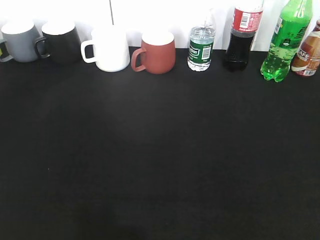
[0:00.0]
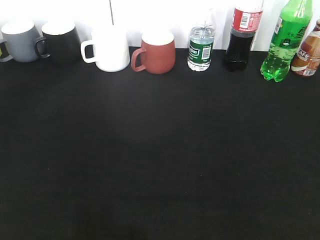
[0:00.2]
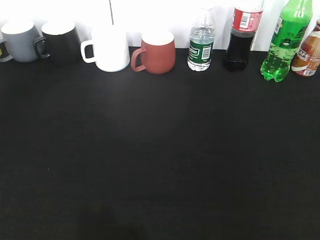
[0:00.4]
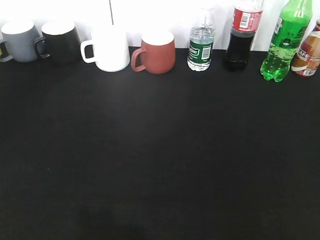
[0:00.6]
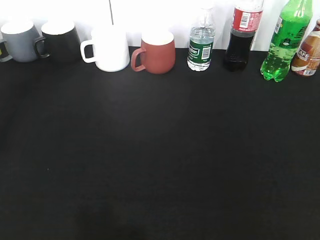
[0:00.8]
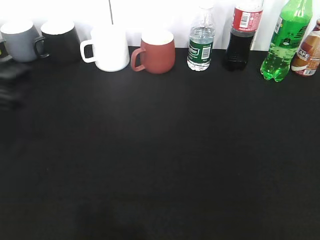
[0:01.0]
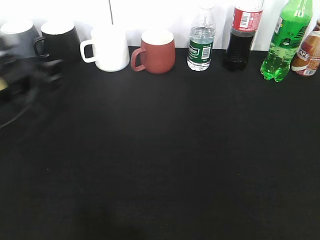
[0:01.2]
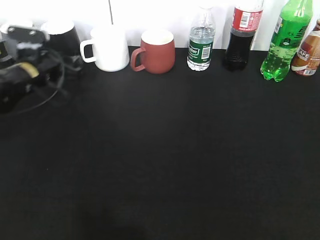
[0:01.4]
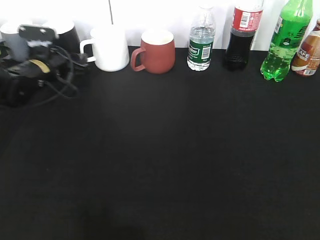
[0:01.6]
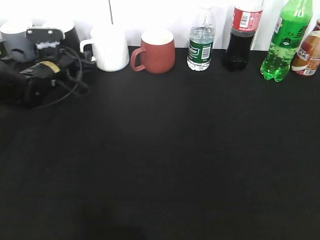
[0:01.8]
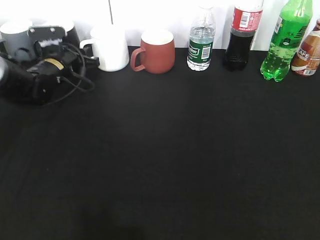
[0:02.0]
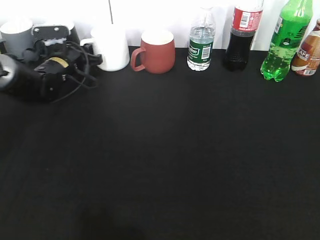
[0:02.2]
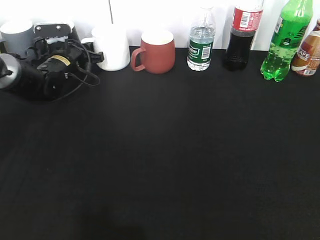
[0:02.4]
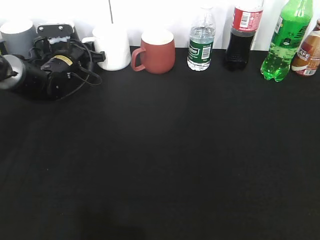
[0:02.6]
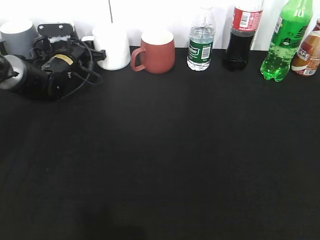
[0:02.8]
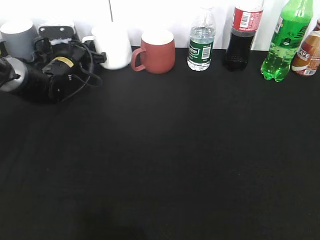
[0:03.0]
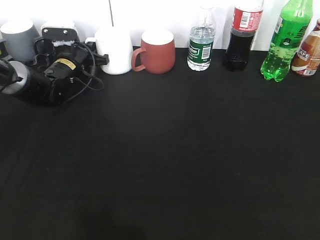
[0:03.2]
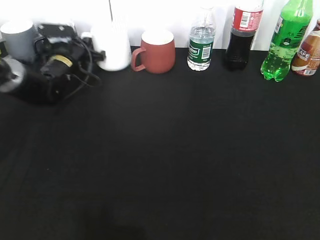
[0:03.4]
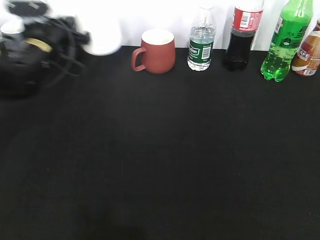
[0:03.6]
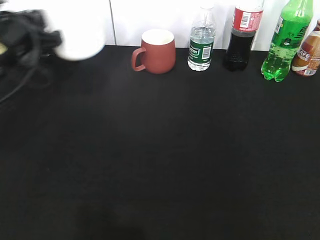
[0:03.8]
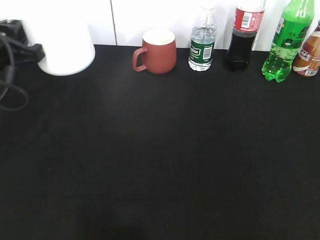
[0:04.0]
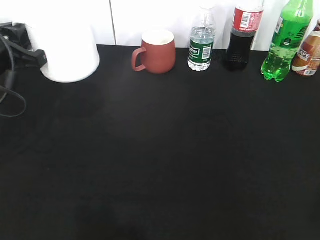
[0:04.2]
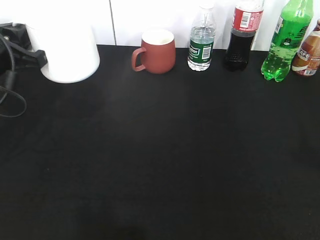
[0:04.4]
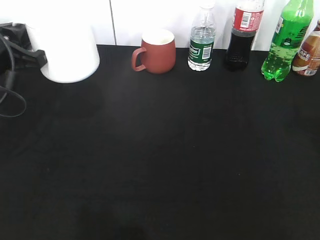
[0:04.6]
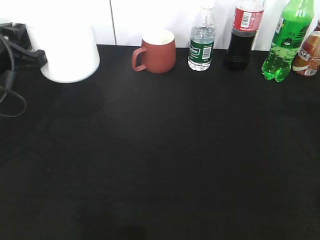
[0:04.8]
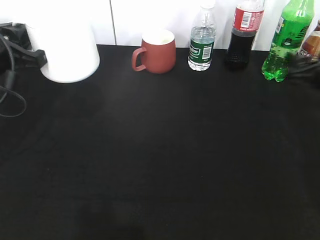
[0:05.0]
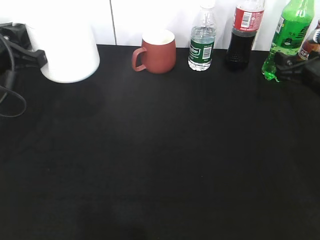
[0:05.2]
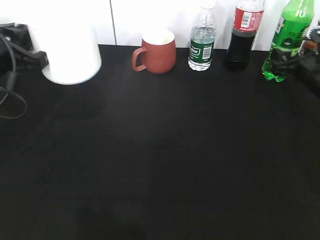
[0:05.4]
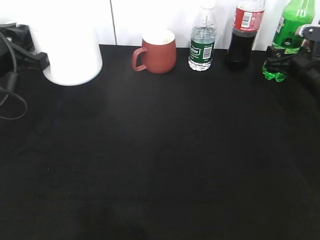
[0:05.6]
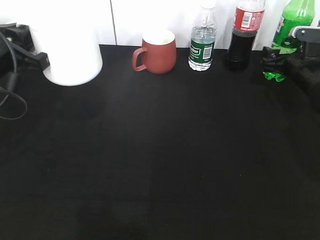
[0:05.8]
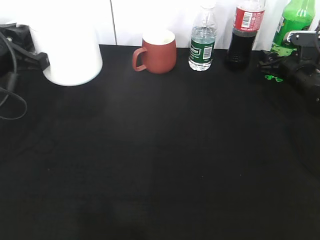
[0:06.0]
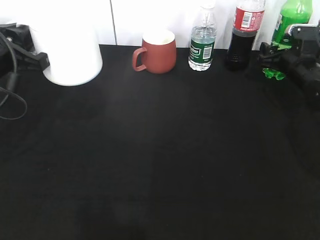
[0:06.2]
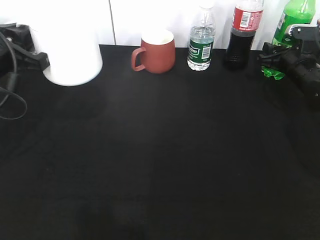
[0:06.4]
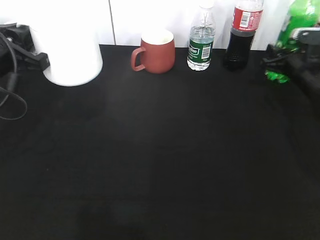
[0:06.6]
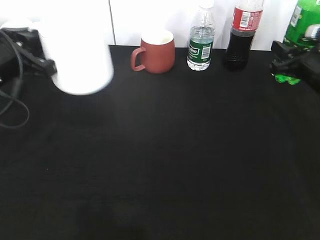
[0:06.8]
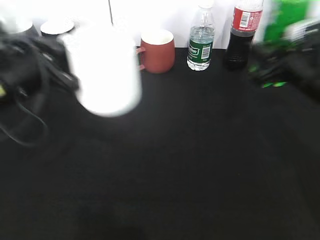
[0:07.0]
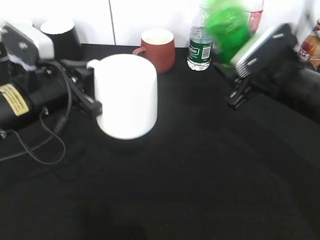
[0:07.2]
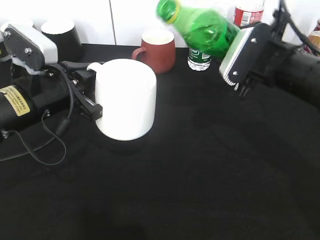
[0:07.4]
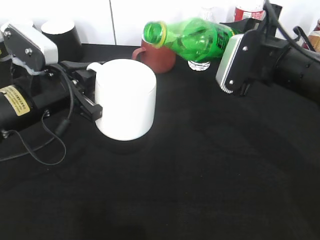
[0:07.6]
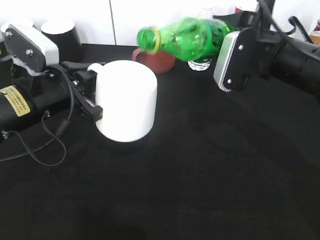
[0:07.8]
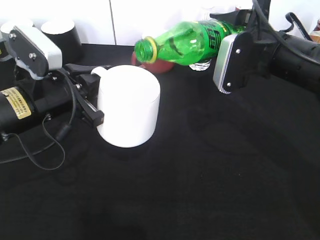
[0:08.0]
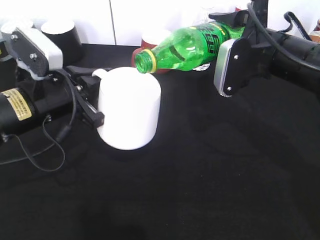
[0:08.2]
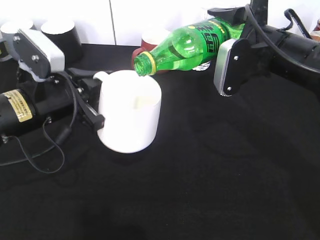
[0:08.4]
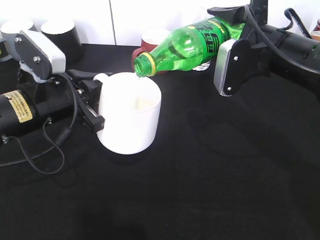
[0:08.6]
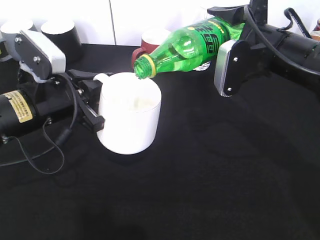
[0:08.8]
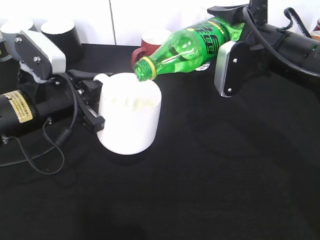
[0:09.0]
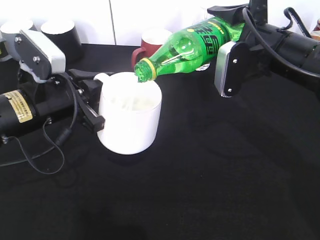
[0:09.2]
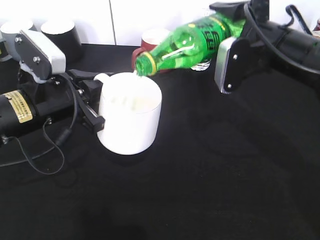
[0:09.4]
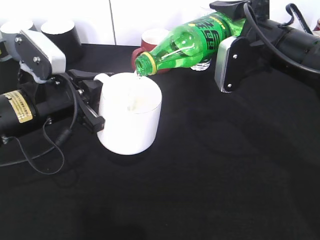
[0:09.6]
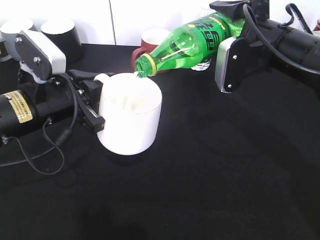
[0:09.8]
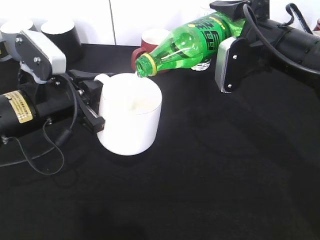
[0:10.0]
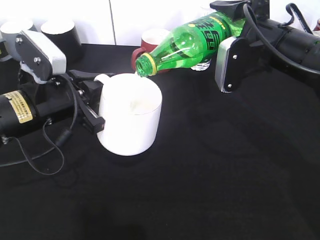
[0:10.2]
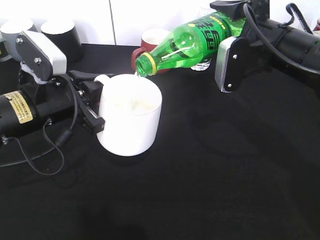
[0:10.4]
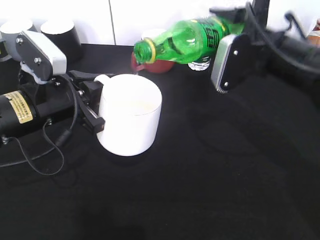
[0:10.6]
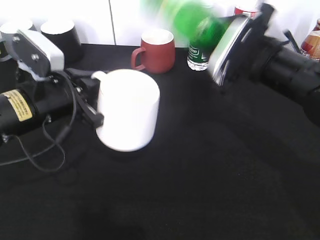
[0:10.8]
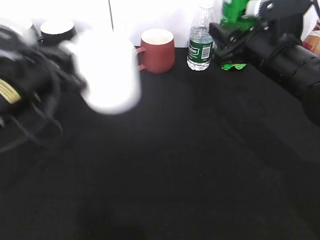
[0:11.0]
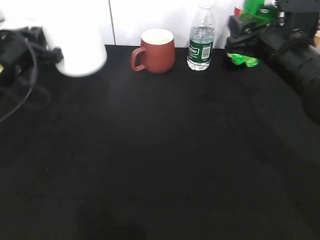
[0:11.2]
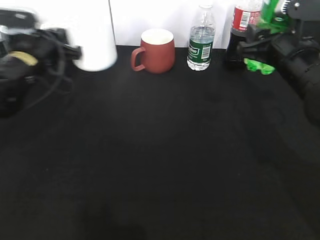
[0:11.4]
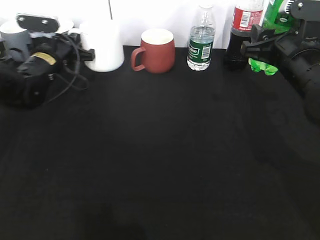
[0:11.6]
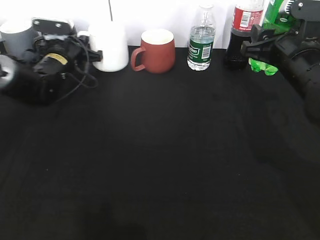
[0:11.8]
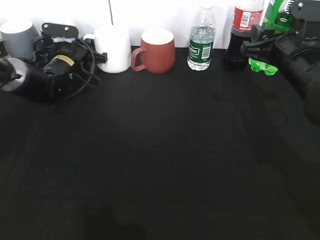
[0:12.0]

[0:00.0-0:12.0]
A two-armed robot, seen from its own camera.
Step, 0:00.0 to 0:03.0: Grasp the white cup with left gripper.
Step, 0:03.2 to 0:04.8: Lift the white cup with left gripper.
Step, 0:05.0 to 0:06.4: Grasp the bottle with sprite with right gripper.
Step, 0:06.6 to 0:10.6: Pour the sprite from bottle to cup with right gripper.
0:00.0 to 0:01.6: The left gripper goes roughly 40 cm forward.
0:01.6 to 0:03.0: The left gripper heads forward, covering roughly 5 cm, and closes up.
0:03.0 to 0:04.4: The left gripper shifts some 25 cm backward and upward; the right gripper heads forward, covering roughly 15 cm.
0:04.4 to 0:06.0: The right gripper travels forward and downward by approximately 35 cm, and opens, then closes once more.
0:06.0 to 0:07.6: The right gripper heads backward, to the left and upward, covering some 20 cm, and closes its fingers; the left gripper heads to the right, covering about 5 cm.
0:09.0 to 0:10.4: The two grippers keep their place.
0:10.4 to 0:12.0: The right gripper shifts by about 5 cm. Meanwhile the left gripper heads forward, covering about 25 cm.

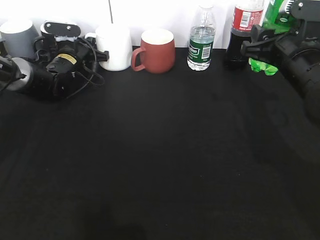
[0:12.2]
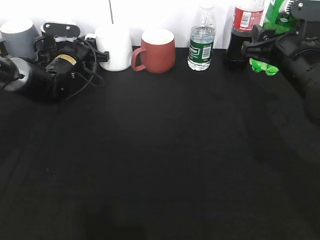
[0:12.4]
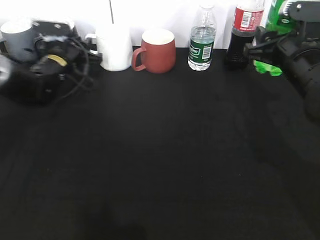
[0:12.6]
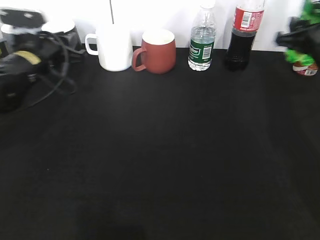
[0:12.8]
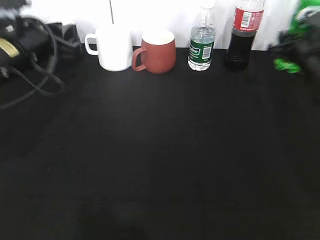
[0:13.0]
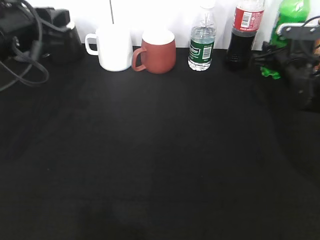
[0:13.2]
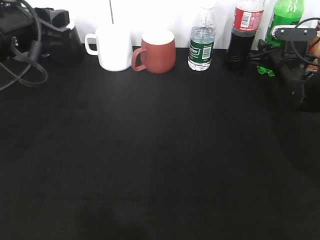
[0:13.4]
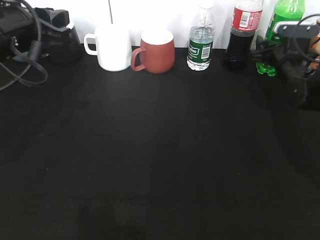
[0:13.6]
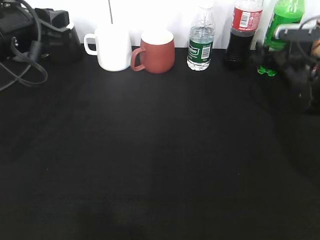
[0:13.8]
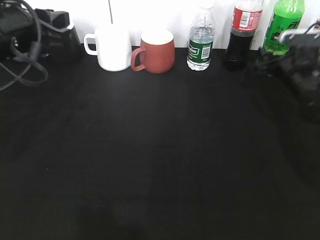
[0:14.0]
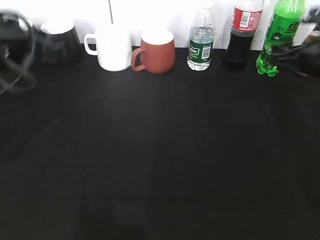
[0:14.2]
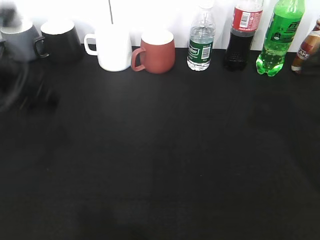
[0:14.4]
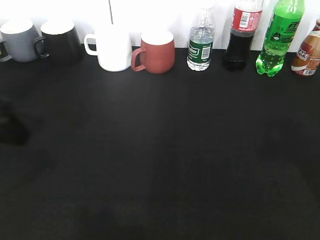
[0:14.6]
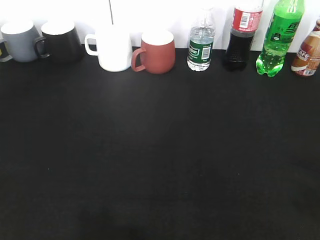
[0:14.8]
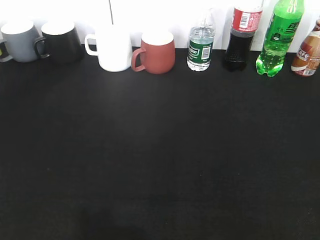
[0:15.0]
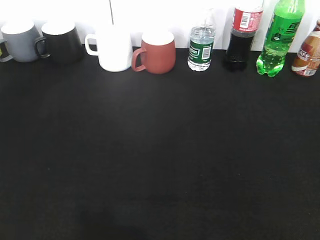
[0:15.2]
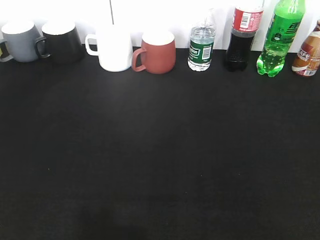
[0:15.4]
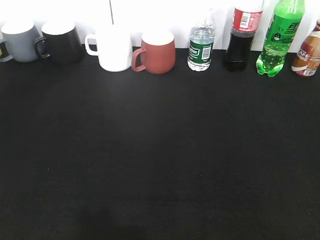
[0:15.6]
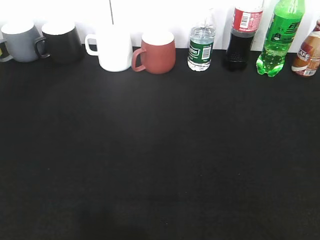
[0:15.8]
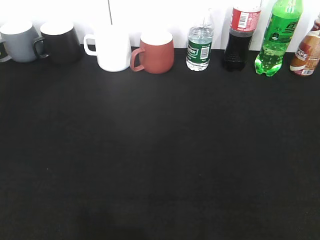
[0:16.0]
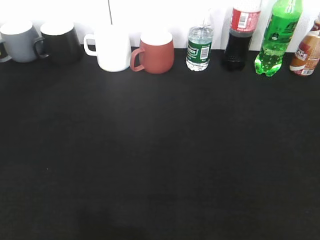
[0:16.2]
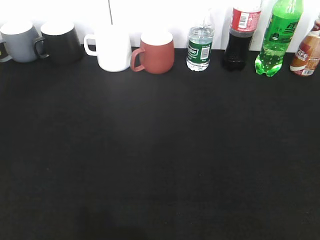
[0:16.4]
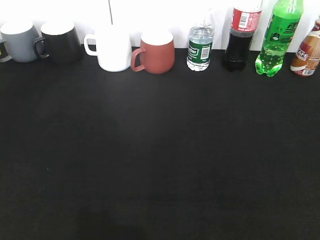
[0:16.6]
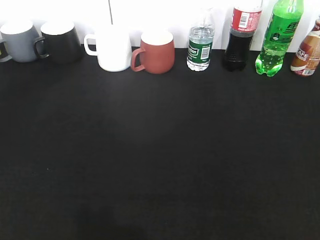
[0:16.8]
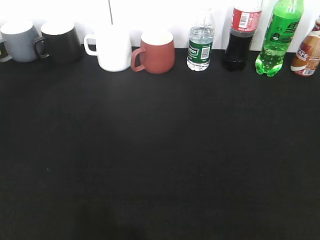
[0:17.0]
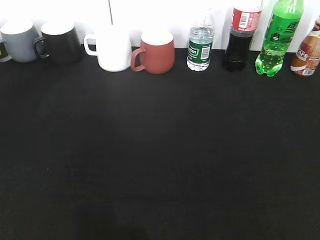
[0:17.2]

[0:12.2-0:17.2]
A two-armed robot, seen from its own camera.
Step, 0:12.2 to 0:14.0: Place the sprite bottle on the table with right gripper.
0:12.2 to 0:13.8: The right gripper is displaced forward, downward and to the right by approximately 15 cm, and opens up. Meanwhile the left gripper travels backward and upward by some 25 cm.
0:13.8 to 0:15.6: The left gripper goes some 30 cm backward and to the left, and opens, while the right gripper heads backward and upward, covering about 50 cm.

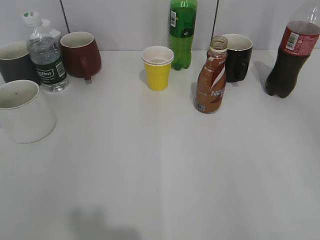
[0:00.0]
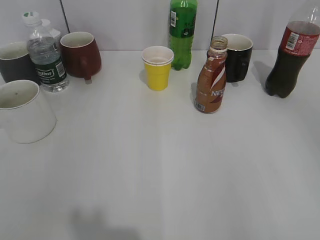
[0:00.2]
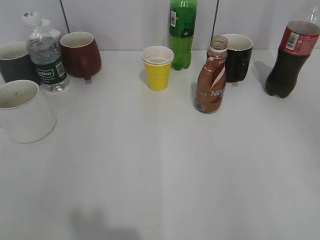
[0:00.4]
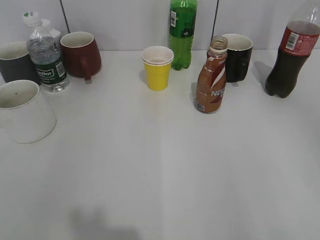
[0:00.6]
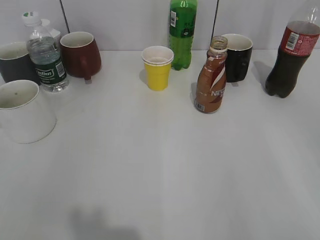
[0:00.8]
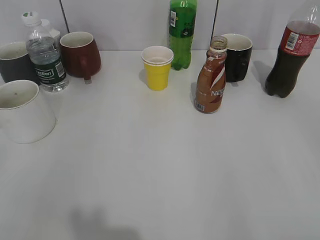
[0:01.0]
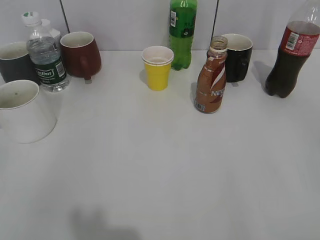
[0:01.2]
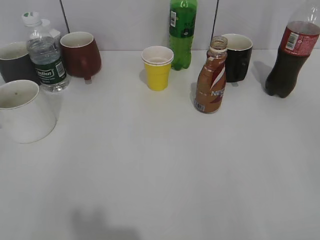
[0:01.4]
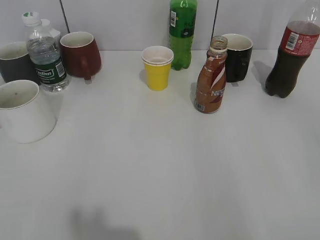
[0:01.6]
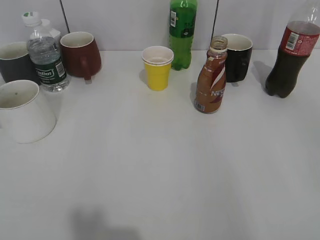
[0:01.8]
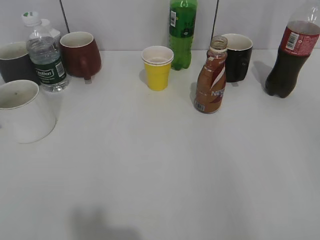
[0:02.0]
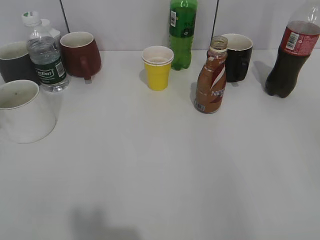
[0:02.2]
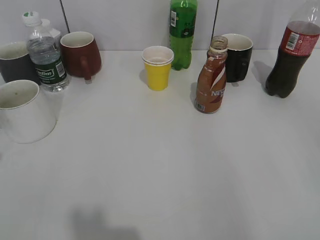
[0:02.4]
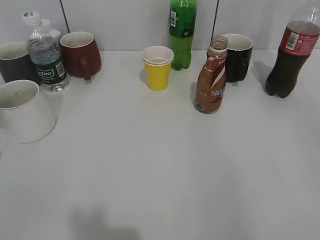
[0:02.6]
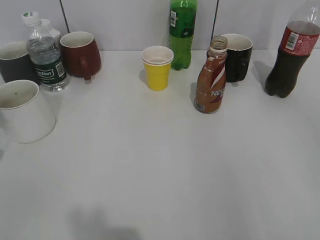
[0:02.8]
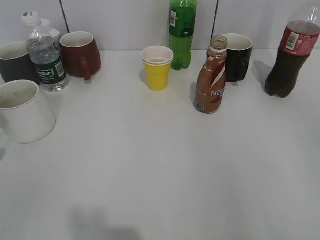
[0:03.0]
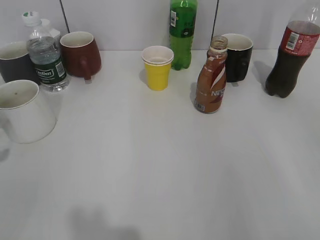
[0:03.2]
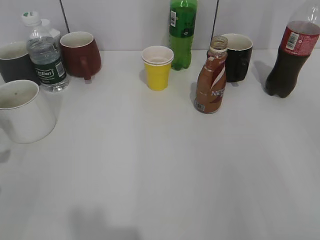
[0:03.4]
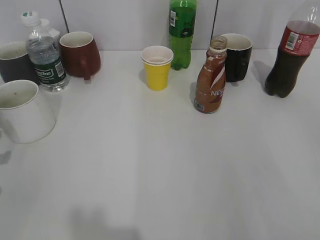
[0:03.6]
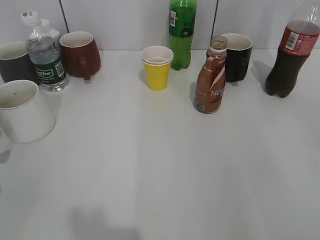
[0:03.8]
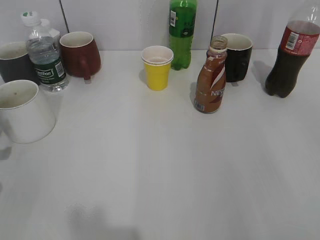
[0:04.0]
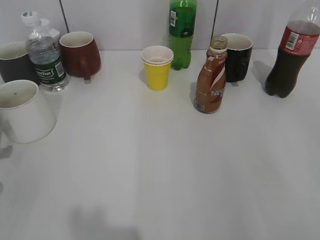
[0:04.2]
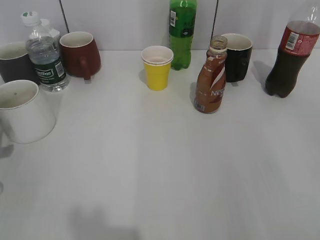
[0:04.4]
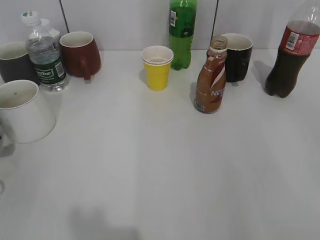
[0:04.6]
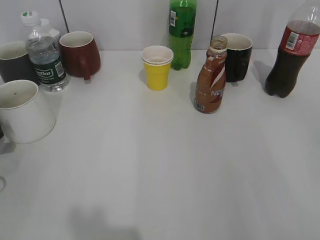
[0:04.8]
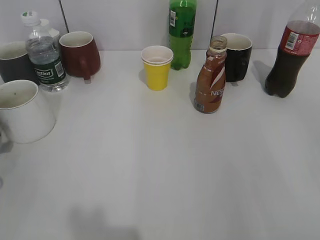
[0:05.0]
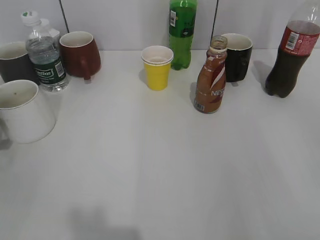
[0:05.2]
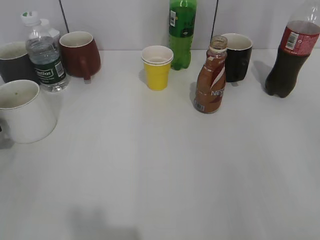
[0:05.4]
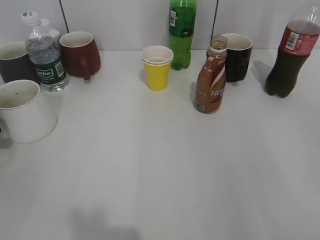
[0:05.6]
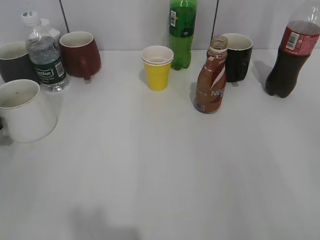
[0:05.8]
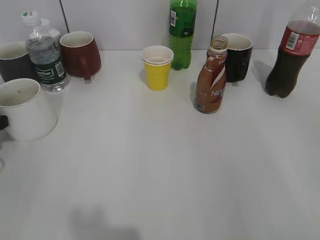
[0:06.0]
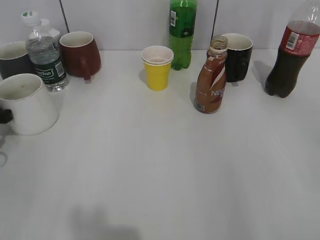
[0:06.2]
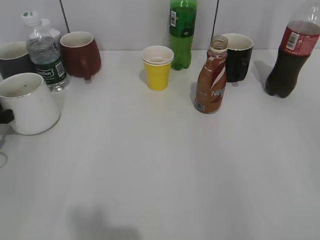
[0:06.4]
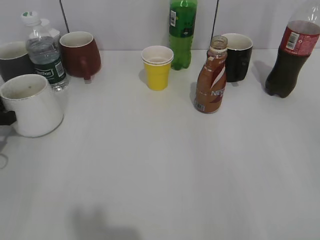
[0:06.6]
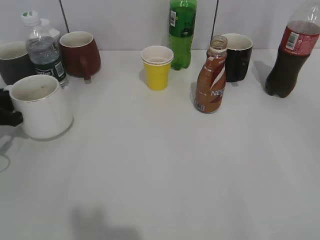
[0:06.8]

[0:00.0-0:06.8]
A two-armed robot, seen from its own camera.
Step, 0:02.4 to 0:06.2: Grasp the white cup with left gripper.
0:05.4 to 0:06.8: The left gripper closes.
